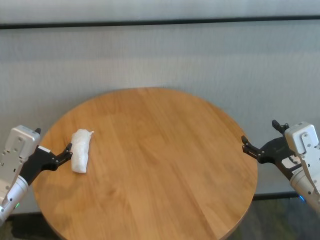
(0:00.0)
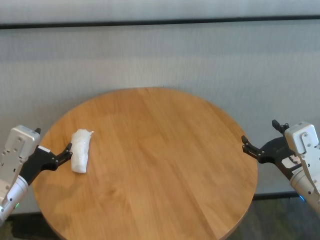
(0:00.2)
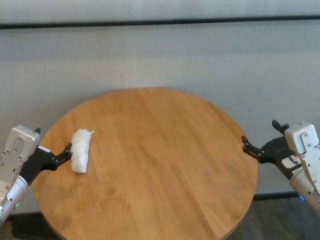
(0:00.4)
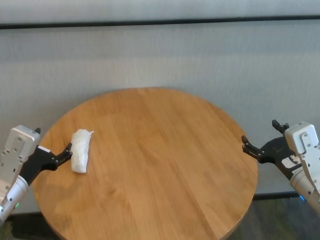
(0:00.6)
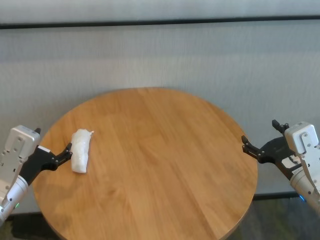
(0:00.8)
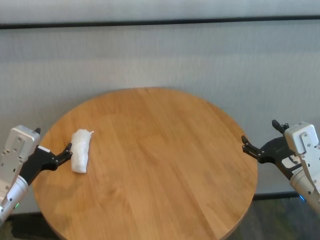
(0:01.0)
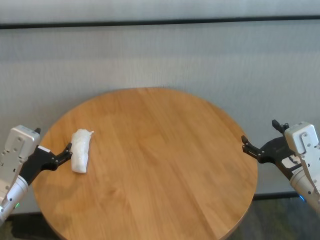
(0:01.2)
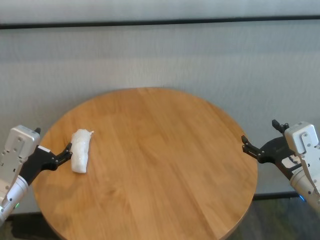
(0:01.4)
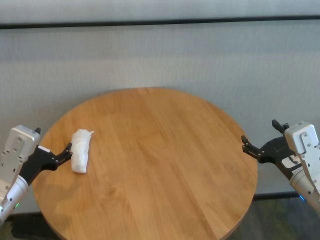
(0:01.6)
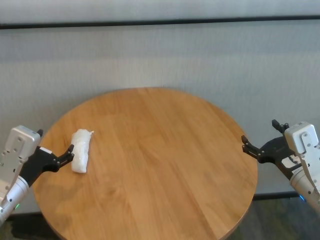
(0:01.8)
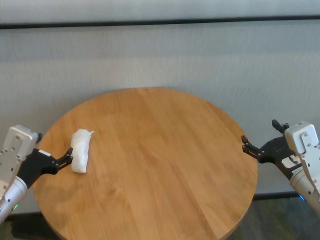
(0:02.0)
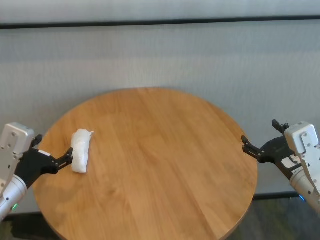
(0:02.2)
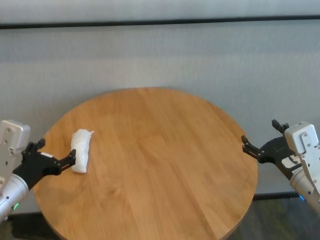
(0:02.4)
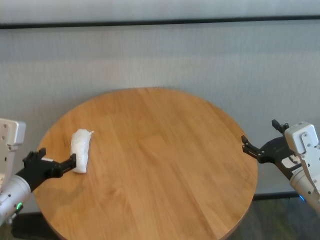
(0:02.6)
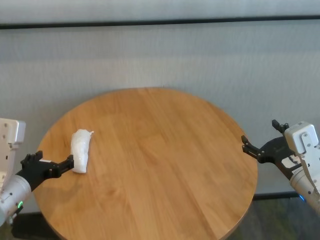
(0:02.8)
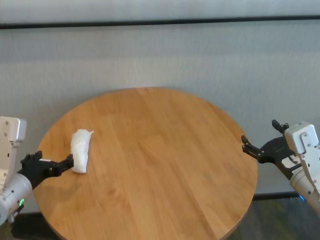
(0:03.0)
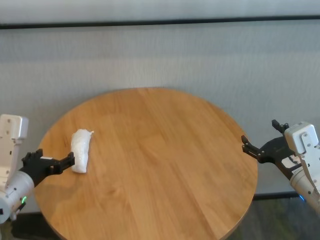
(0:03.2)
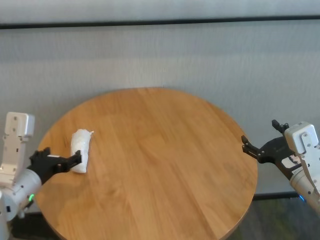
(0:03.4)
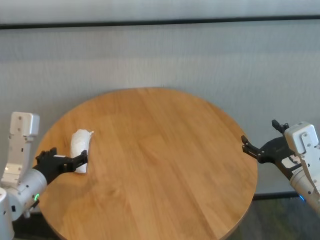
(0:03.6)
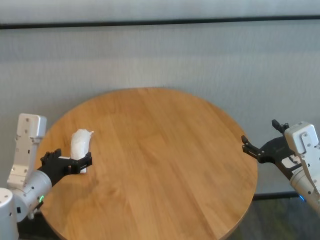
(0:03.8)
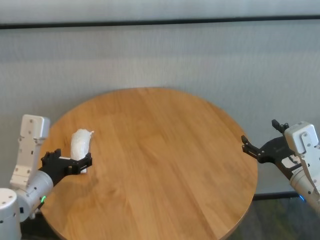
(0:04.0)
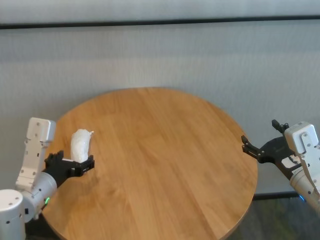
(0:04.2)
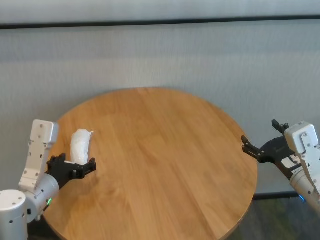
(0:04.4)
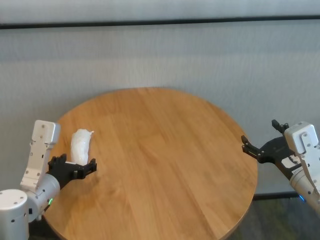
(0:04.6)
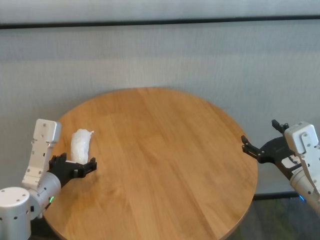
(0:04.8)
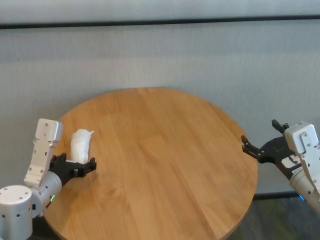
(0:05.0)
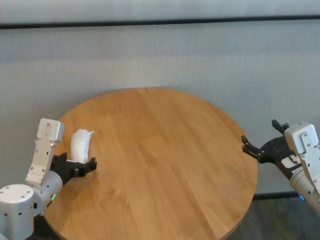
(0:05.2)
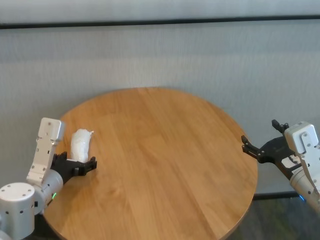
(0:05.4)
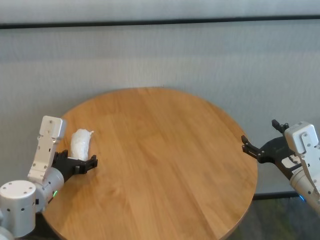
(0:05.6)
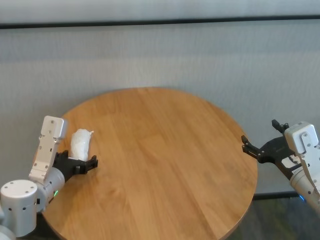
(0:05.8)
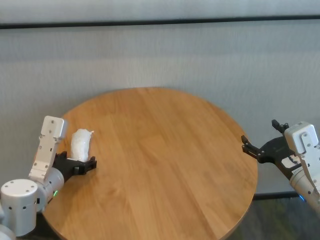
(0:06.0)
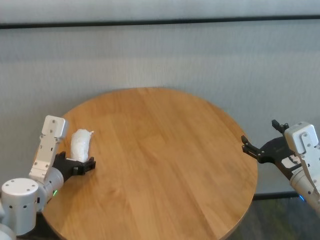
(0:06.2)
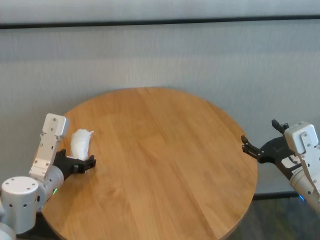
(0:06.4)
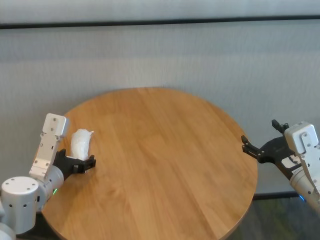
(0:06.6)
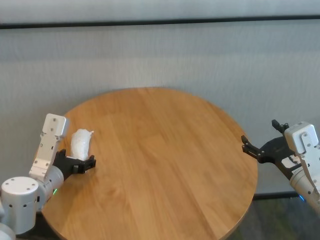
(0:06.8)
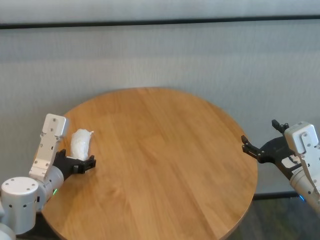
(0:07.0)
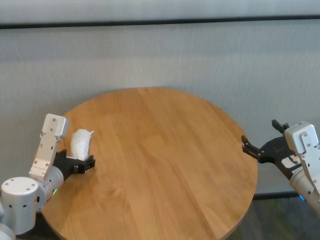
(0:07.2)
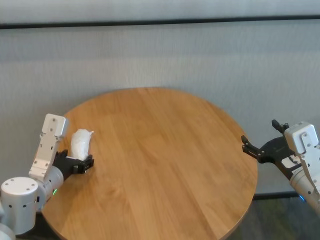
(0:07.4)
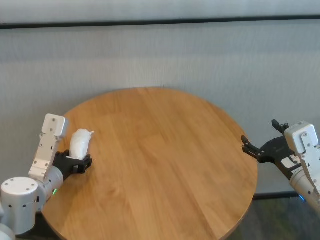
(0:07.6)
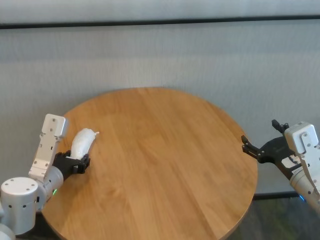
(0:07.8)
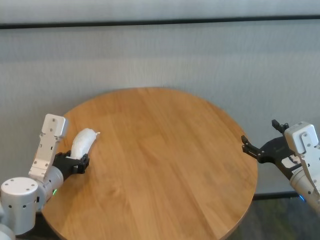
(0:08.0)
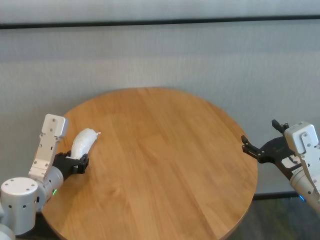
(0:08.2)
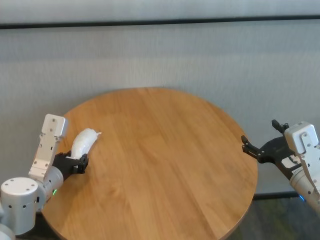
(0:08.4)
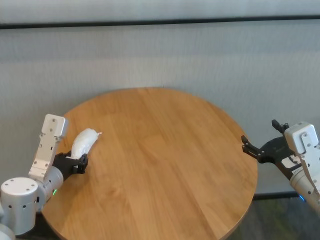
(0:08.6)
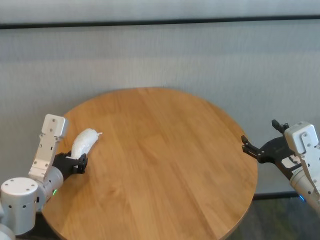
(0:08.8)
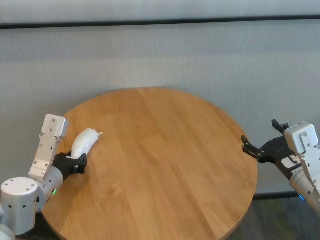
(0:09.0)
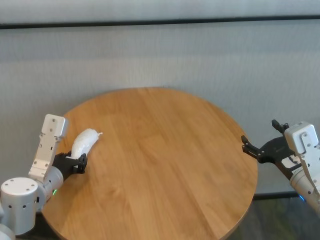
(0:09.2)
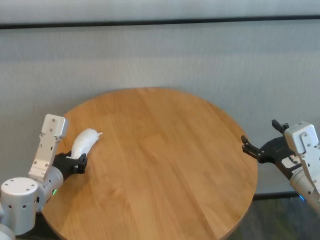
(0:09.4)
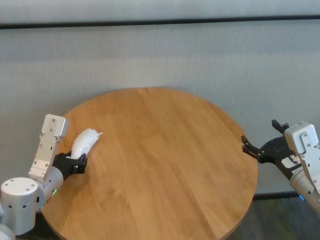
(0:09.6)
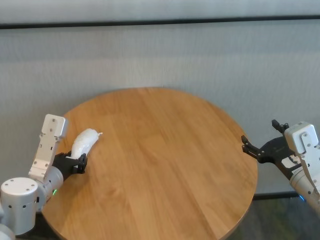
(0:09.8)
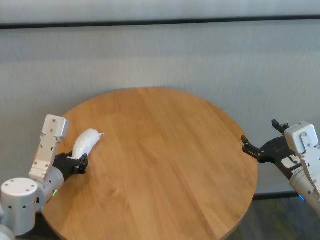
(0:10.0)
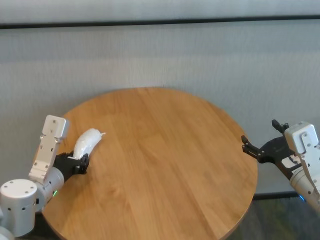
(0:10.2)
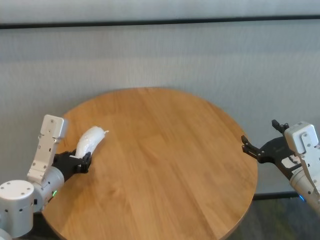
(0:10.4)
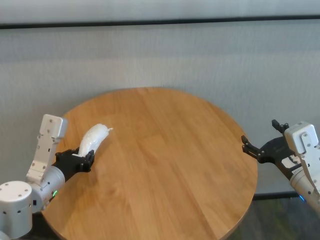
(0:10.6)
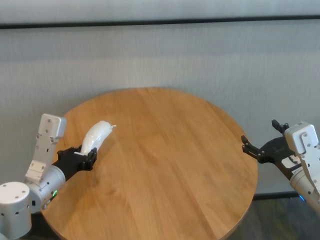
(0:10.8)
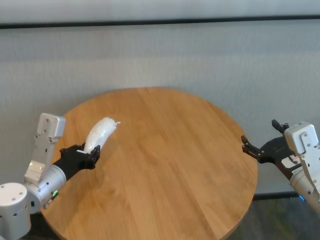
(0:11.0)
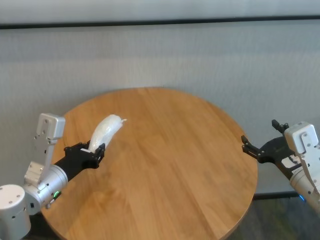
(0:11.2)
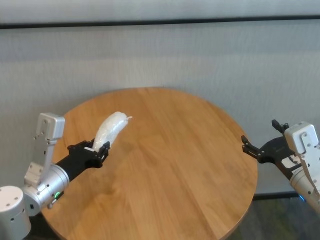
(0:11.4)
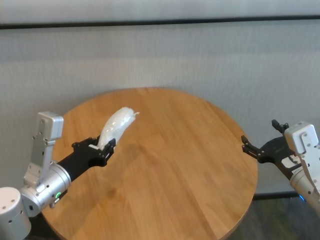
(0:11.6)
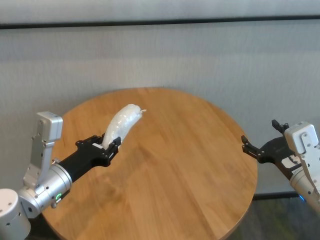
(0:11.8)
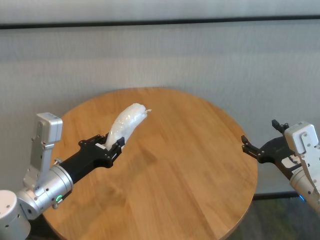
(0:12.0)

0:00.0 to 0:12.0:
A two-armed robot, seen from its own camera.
Task of the whole recording: One hand took the sandbag from the other hand and placed it on the table.
Step, 0:00.0 to 0:08.8: Grasp the paper ball with left gripper.

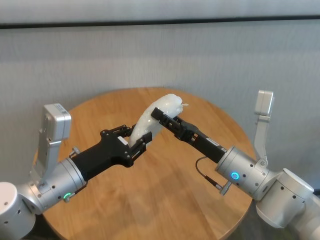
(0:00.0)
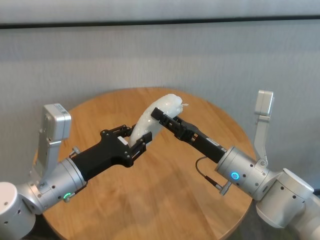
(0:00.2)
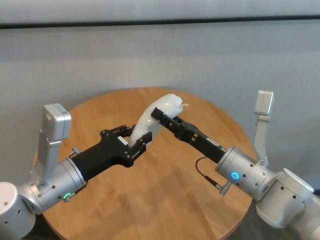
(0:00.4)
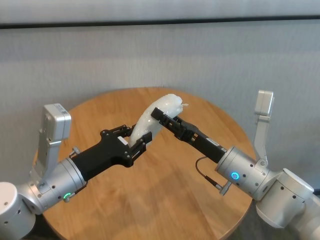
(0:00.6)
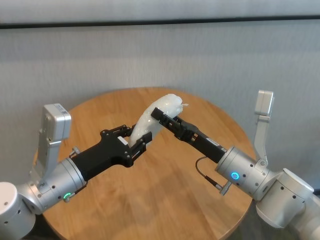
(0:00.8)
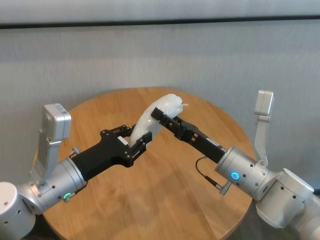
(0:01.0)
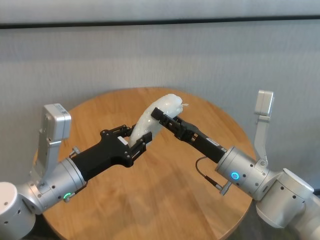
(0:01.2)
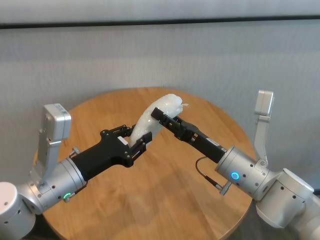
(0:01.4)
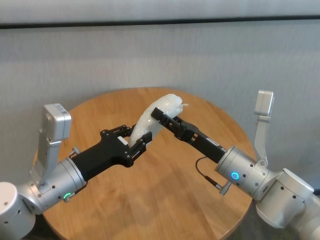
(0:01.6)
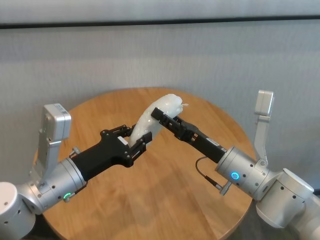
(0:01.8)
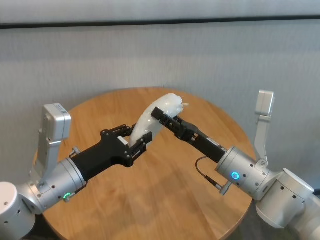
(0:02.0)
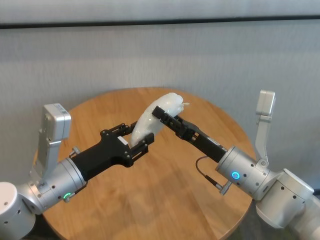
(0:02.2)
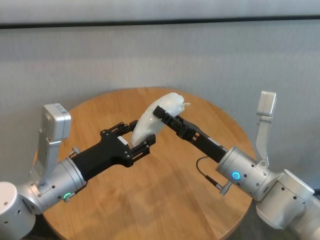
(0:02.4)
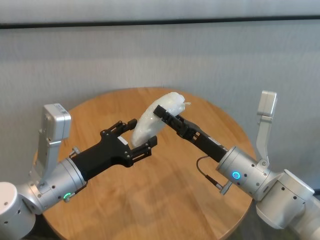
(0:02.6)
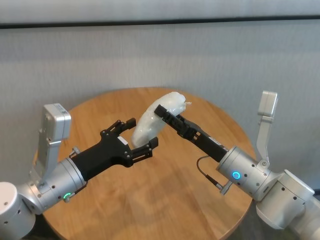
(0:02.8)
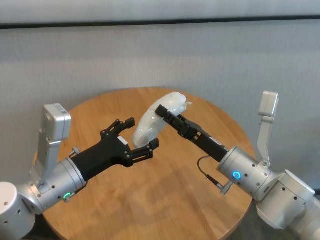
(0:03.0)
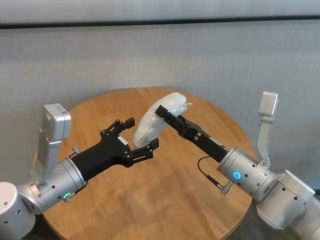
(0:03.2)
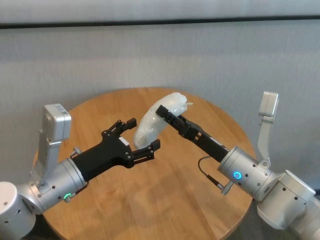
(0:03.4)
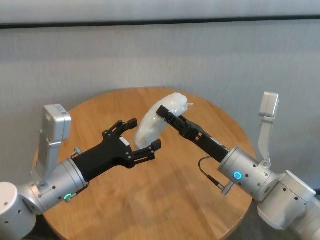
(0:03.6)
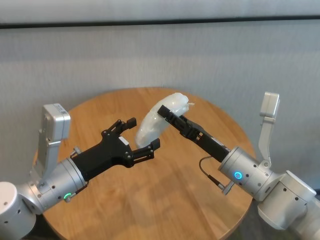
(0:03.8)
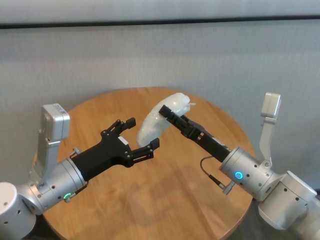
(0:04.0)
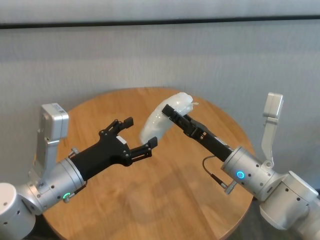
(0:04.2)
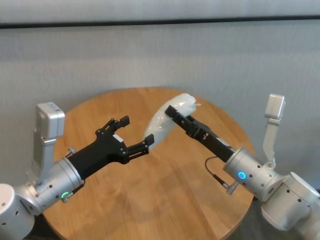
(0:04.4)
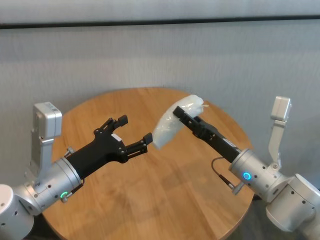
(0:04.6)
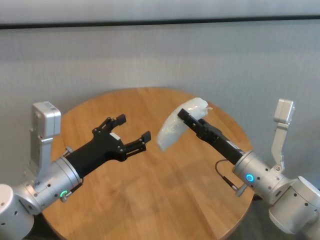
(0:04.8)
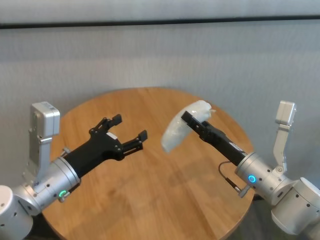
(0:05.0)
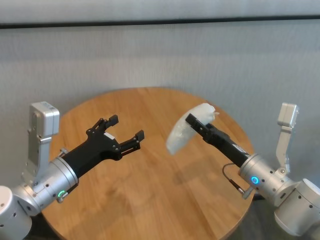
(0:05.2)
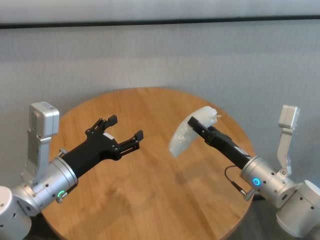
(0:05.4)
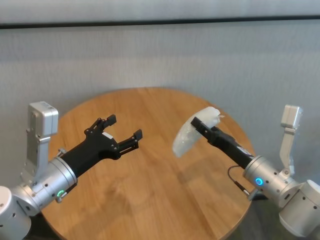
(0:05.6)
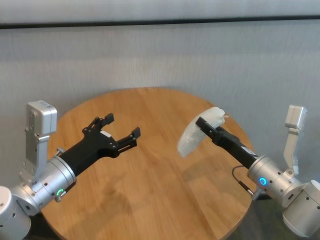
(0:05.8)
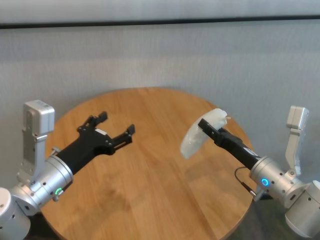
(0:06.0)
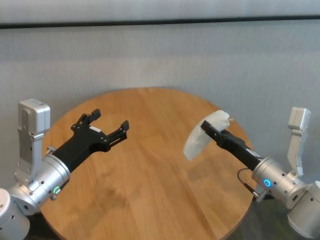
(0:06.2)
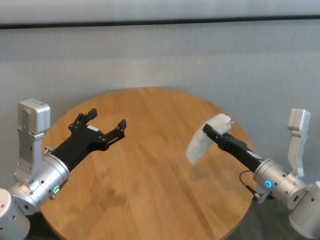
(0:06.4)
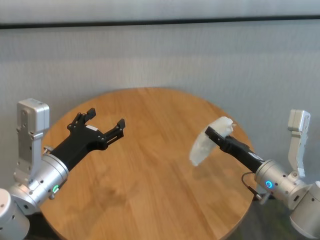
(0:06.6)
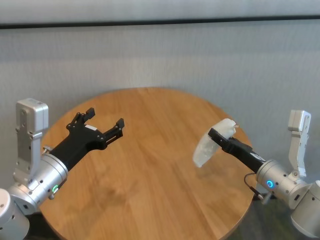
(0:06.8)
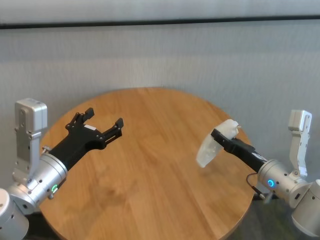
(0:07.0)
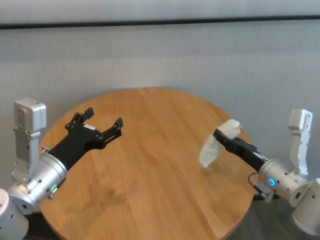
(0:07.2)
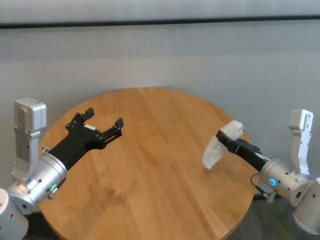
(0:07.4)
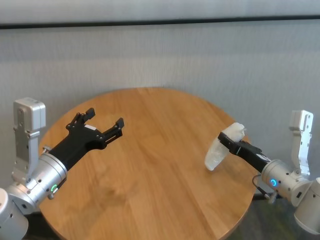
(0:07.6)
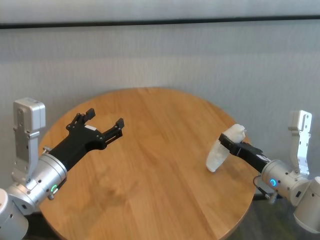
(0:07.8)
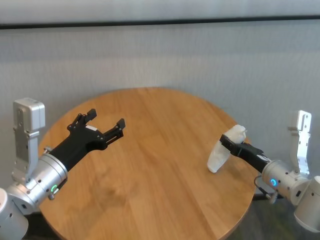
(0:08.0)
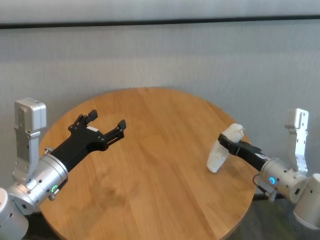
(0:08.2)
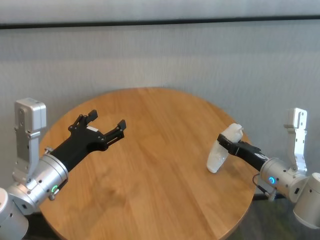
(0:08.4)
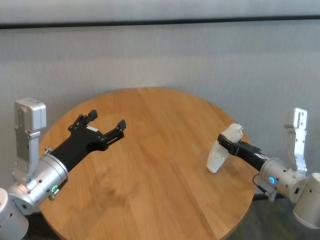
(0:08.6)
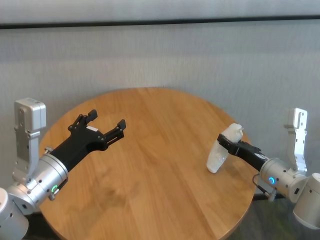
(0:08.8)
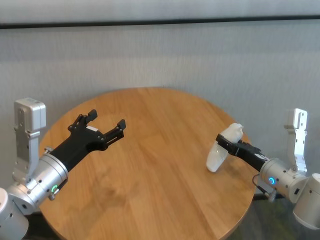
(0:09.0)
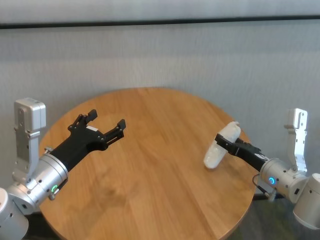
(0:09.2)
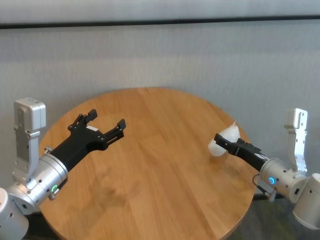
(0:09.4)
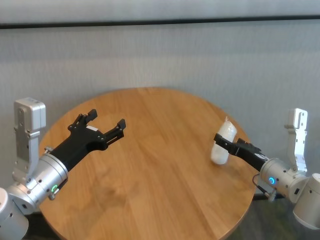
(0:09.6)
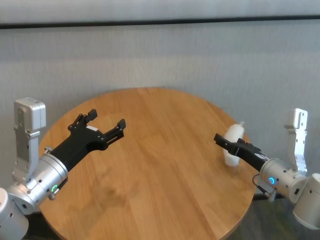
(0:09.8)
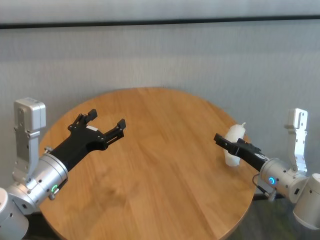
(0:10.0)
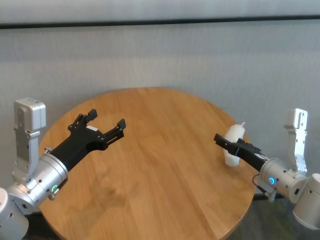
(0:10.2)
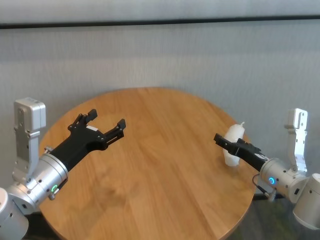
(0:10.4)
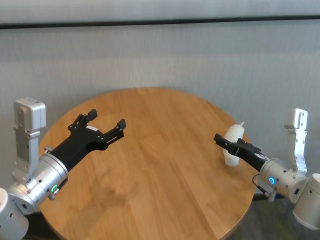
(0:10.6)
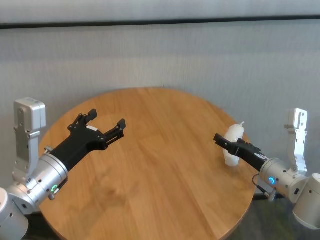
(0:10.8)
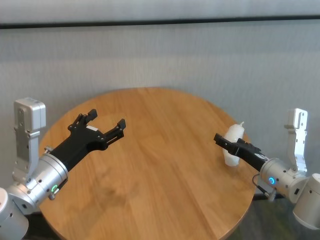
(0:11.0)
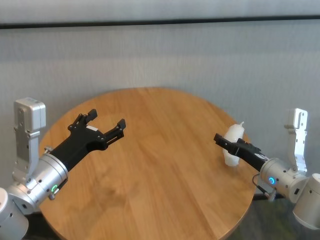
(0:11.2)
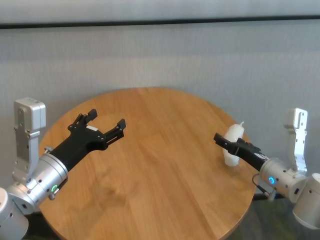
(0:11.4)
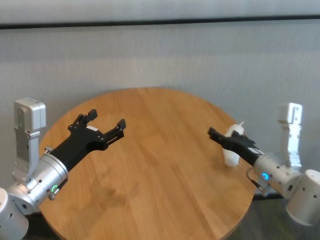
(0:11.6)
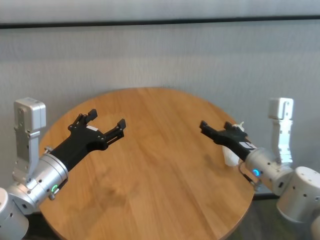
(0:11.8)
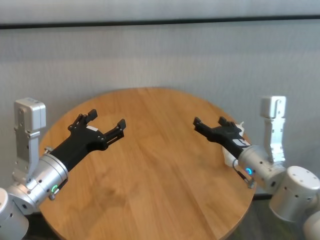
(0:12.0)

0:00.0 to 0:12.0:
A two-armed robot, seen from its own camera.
Task of the whole recording: One hand took the sandbag from the other hand and placed it on the table.
Step, 0:00.0 to 0:04.6: Pass the paper ball to the right gripper.
Step, 0:04.8 to 0:09.6: Place the paper ball on the table with right gripper.
